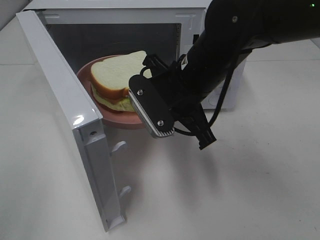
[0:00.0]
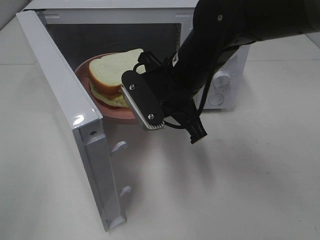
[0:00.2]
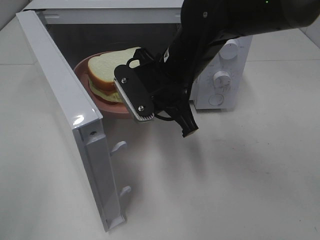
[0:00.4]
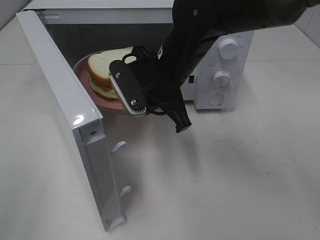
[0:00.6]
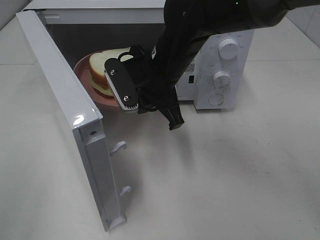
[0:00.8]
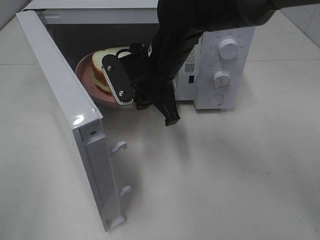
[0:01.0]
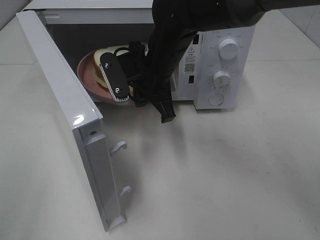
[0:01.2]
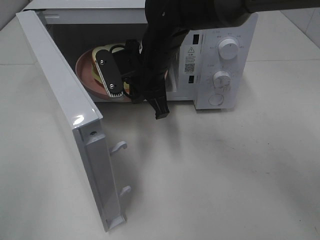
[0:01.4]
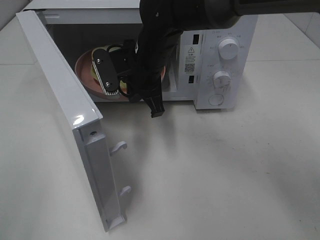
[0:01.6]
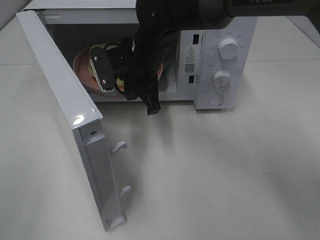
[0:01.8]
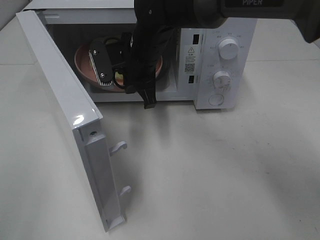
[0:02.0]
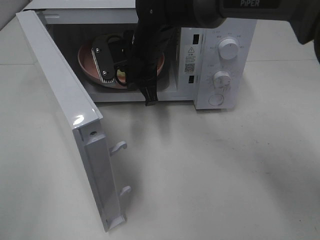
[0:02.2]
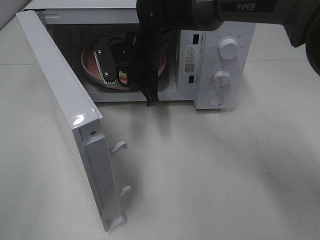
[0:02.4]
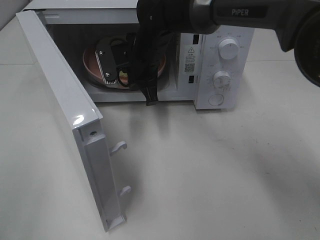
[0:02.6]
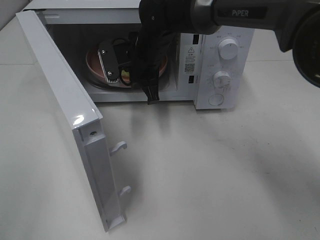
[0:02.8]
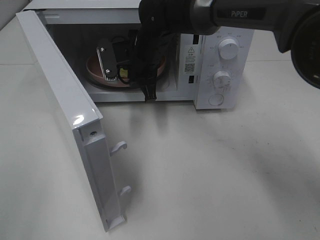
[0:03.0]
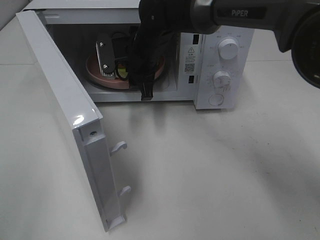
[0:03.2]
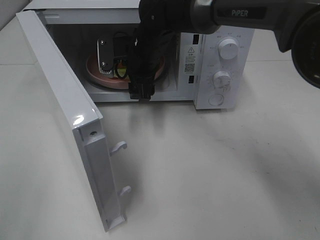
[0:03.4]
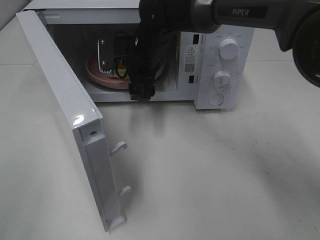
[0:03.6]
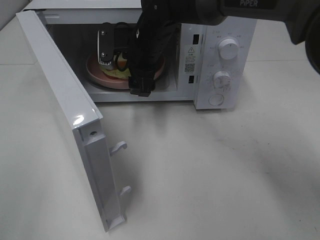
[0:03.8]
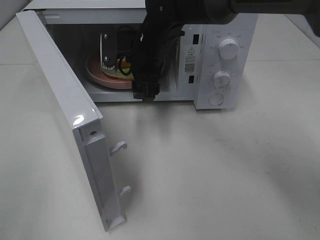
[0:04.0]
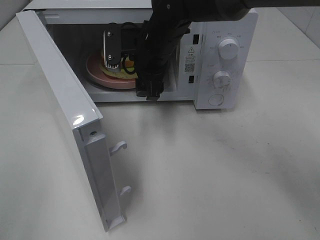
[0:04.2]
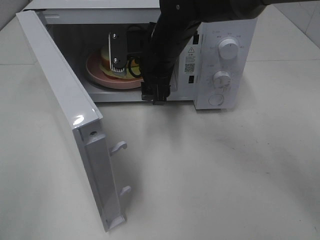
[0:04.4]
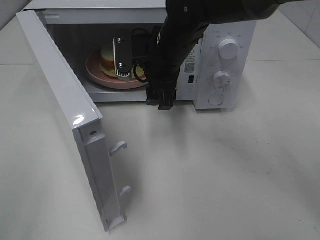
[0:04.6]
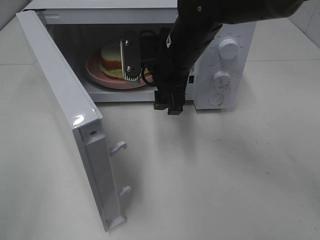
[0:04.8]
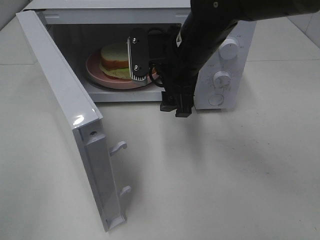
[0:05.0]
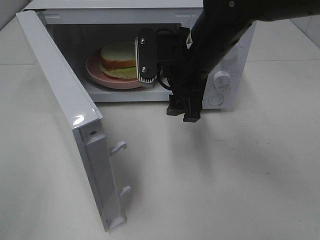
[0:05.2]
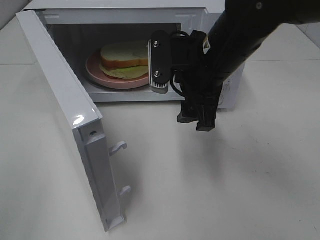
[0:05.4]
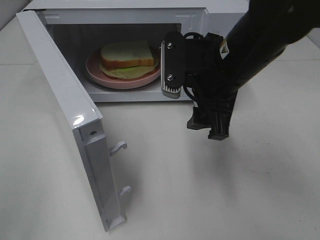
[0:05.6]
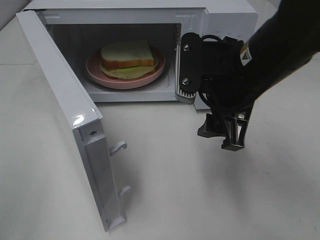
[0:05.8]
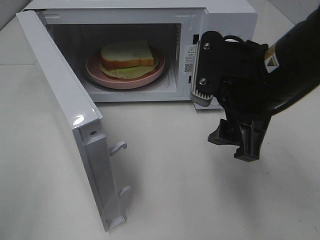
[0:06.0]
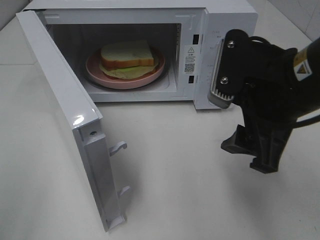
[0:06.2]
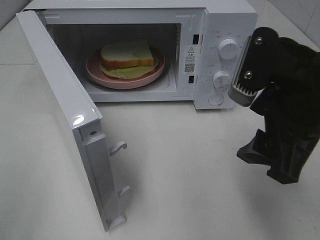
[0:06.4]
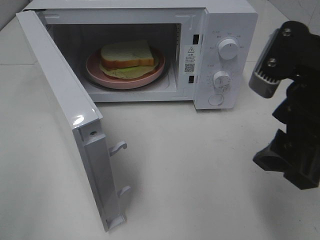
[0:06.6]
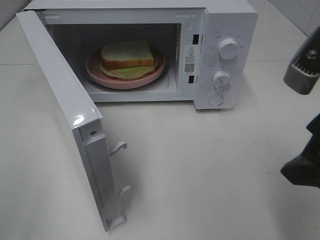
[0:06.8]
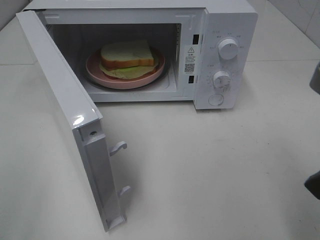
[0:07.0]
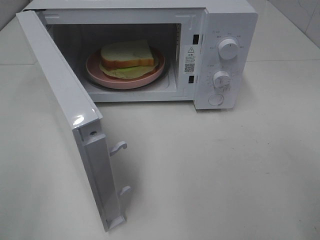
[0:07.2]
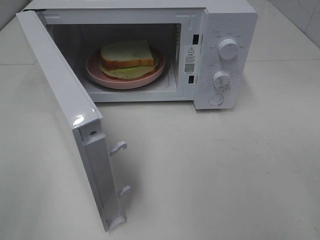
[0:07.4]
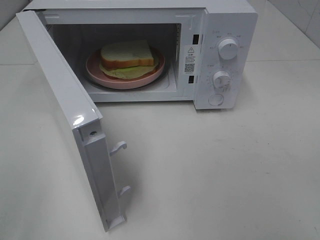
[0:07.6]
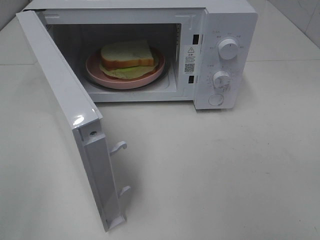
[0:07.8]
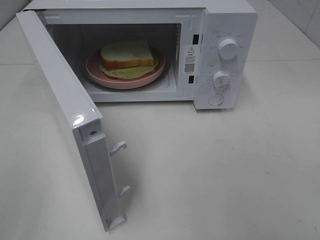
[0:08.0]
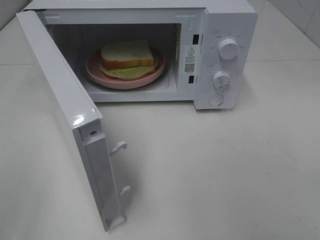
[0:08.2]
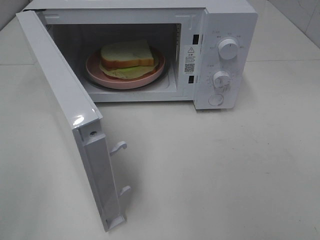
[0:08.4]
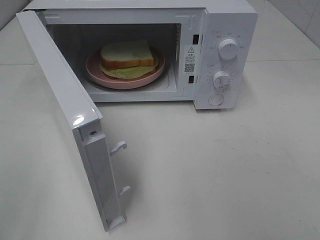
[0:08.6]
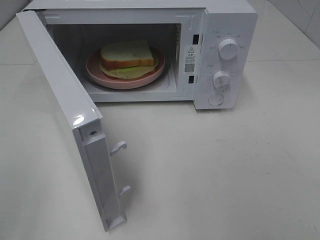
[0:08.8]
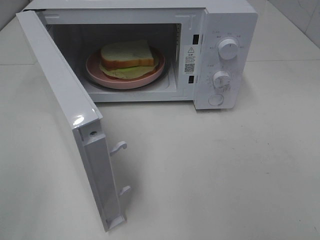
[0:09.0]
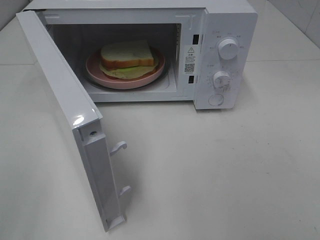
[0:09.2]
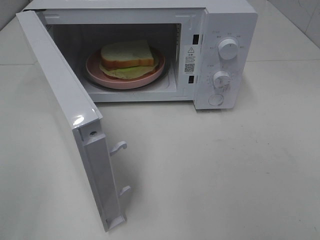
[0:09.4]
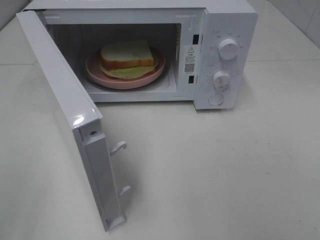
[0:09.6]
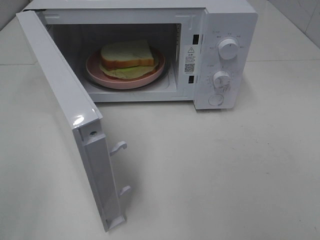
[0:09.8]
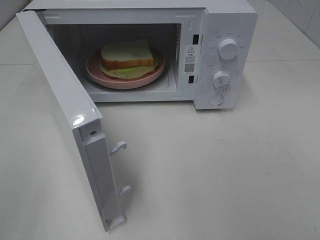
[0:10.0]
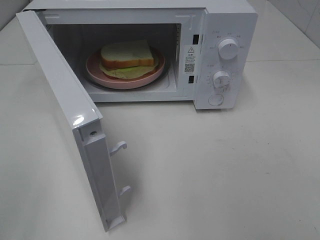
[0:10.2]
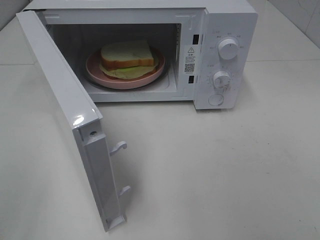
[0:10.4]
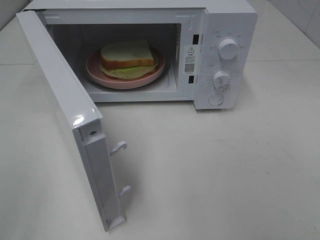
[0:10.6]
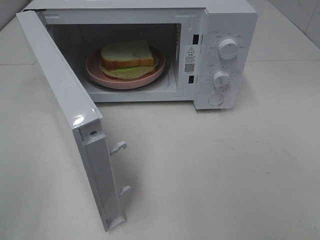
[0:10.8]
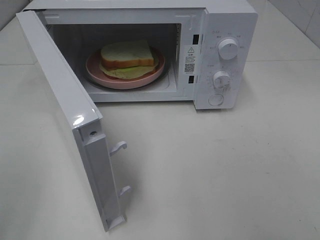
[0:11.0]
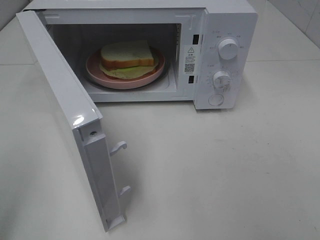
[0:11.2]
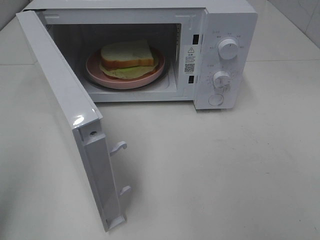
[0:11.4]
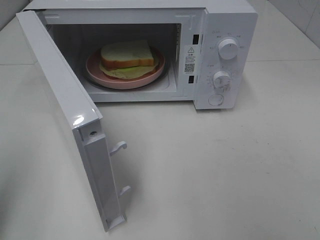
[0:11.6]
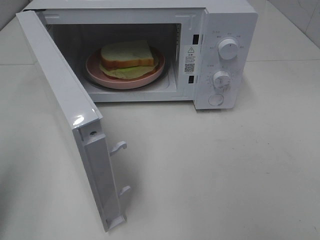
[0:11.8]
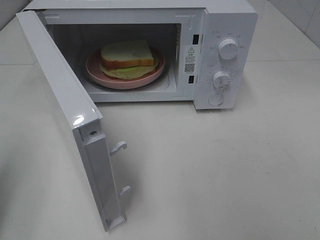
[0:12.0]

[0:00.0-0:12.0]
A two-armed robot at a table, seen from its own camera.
Task of the whole recording: Heat Sandwich.
Step, 0:00.0 to 0:04.0: Right hand: place the plate in the microwave.
0:00.0 to 0:01.6: The right gripper moves forward and to the left, approximately 10 cm.
0:01.6 to 0:03.0: The right gripper travels forward by approximately 5 cm.
0:03.0 to 0:04.4: The right gripper shifts by approximately 5 cm, and opens.
0:04.4 to 0:06.0: The right gripper goes some 20 cm backward and to the right.
0:06.0 to 0:07.6: The right gripper goes approximately 20 cm backward and to the right.
0:09.0 to 0:10.4: Both grippers stay about where they are.

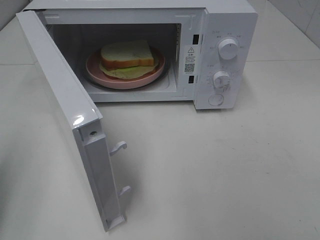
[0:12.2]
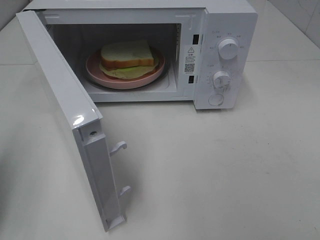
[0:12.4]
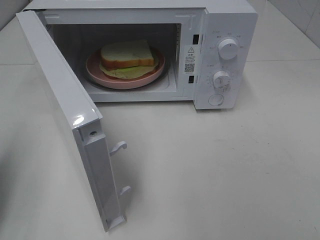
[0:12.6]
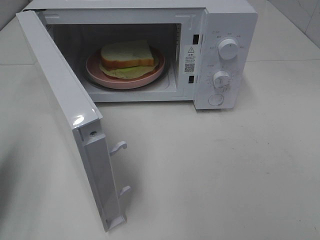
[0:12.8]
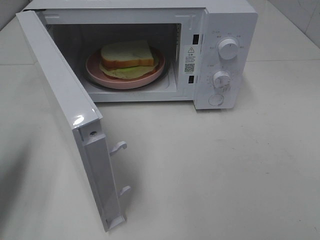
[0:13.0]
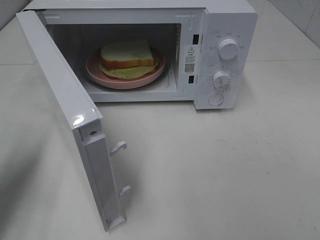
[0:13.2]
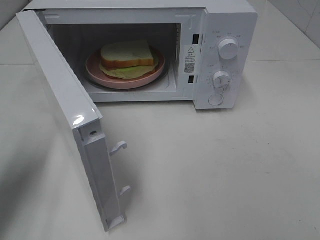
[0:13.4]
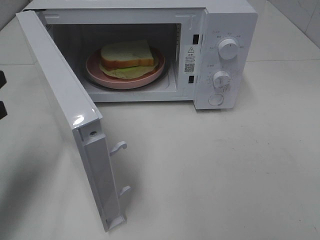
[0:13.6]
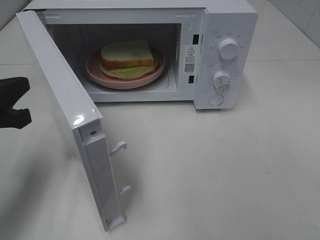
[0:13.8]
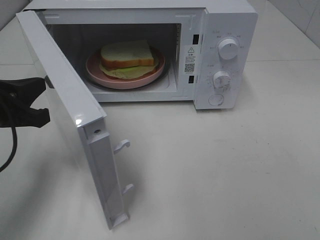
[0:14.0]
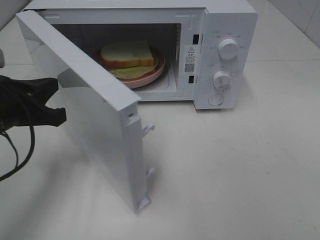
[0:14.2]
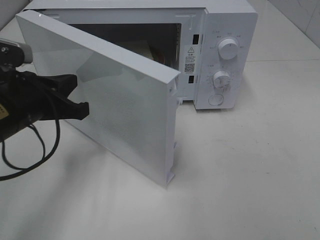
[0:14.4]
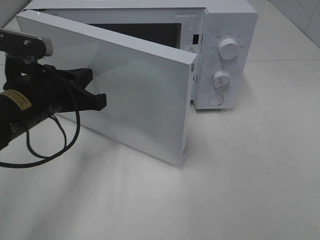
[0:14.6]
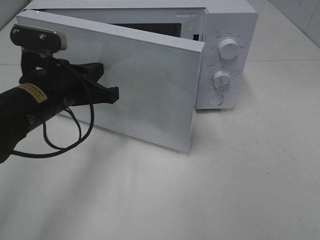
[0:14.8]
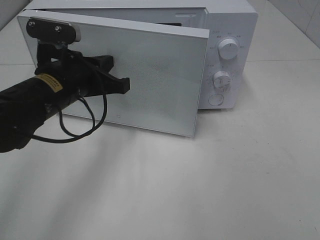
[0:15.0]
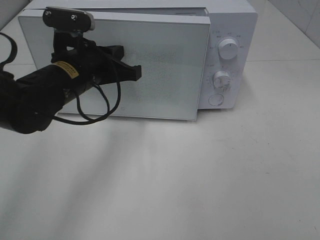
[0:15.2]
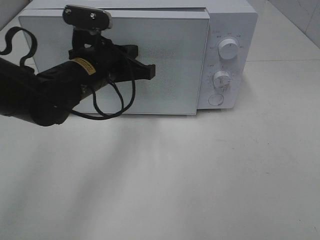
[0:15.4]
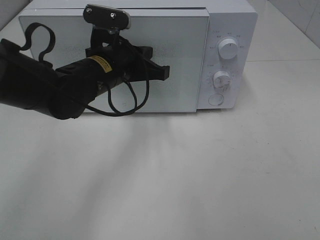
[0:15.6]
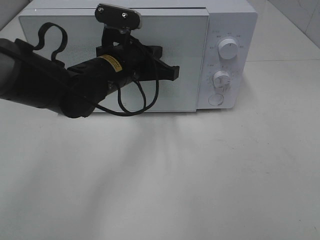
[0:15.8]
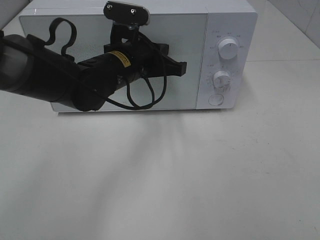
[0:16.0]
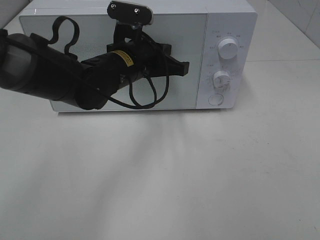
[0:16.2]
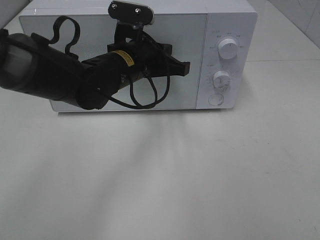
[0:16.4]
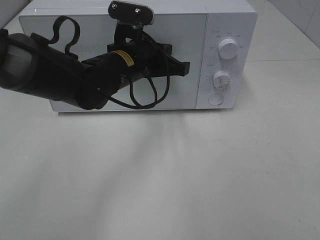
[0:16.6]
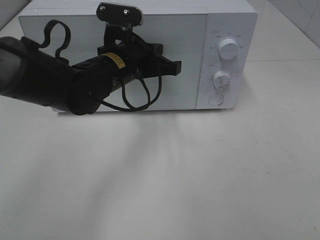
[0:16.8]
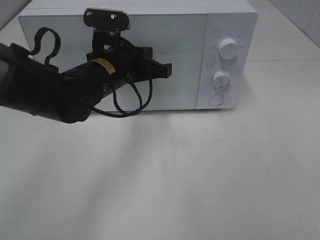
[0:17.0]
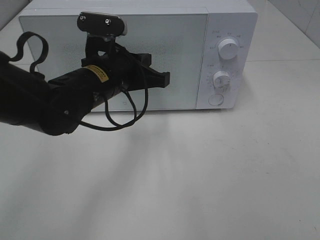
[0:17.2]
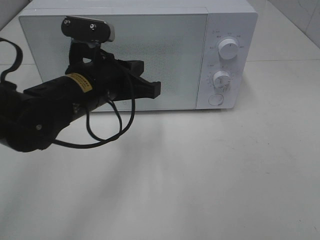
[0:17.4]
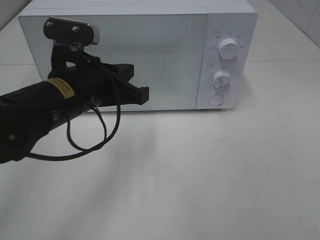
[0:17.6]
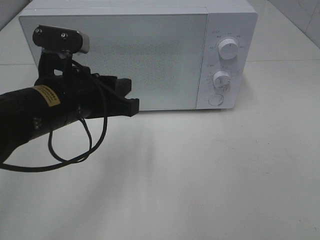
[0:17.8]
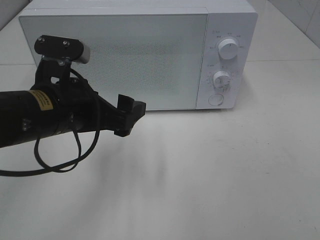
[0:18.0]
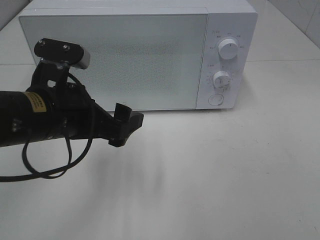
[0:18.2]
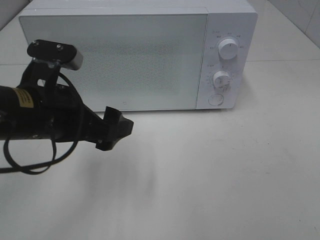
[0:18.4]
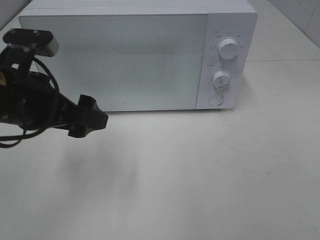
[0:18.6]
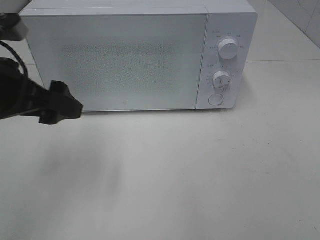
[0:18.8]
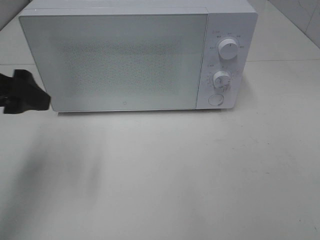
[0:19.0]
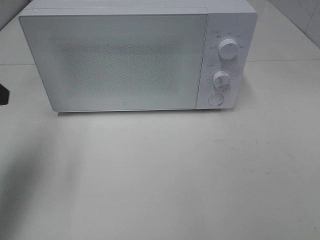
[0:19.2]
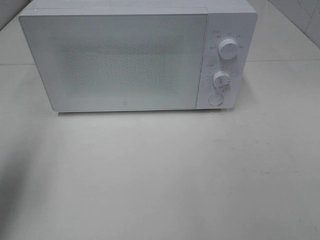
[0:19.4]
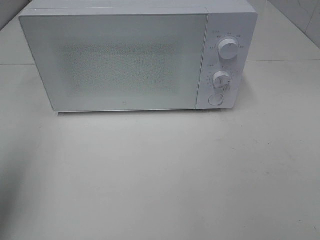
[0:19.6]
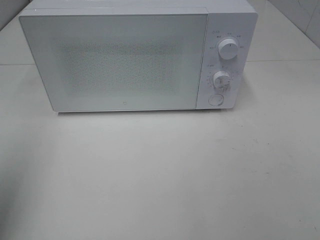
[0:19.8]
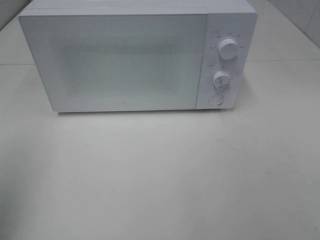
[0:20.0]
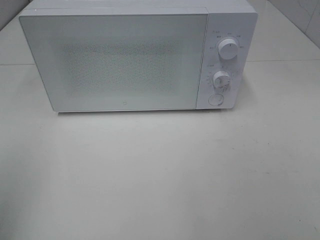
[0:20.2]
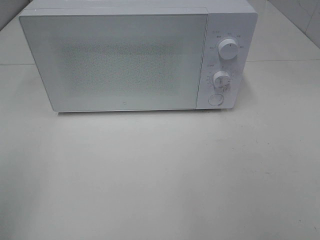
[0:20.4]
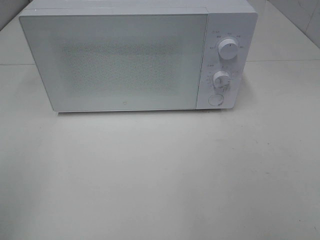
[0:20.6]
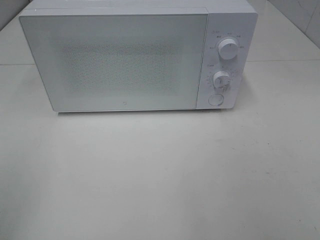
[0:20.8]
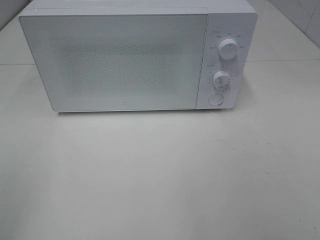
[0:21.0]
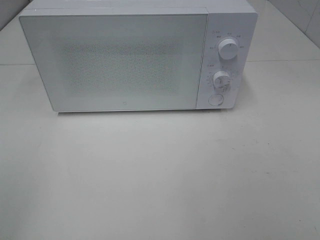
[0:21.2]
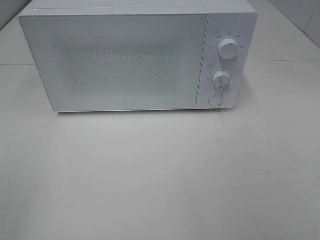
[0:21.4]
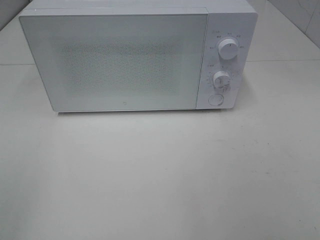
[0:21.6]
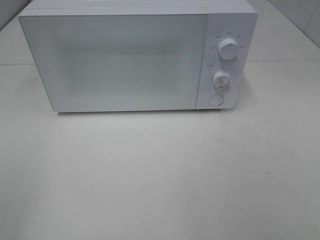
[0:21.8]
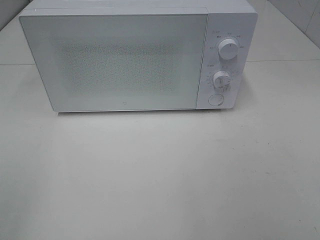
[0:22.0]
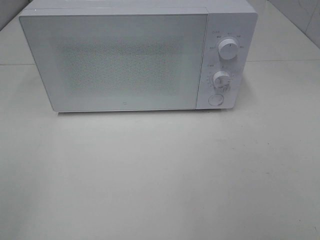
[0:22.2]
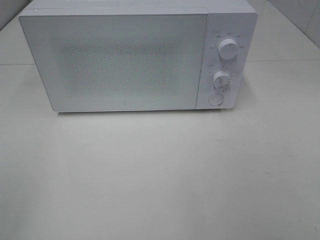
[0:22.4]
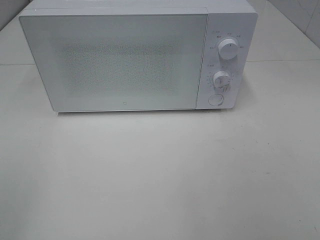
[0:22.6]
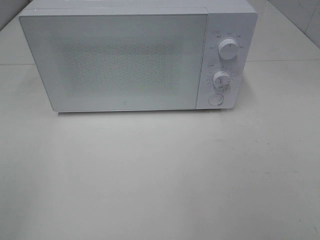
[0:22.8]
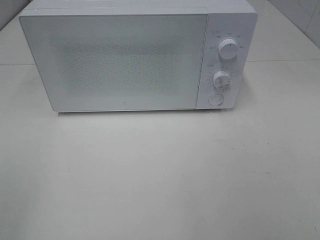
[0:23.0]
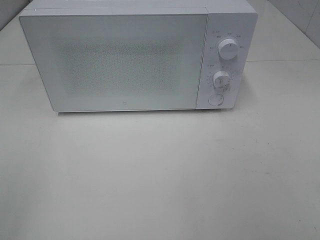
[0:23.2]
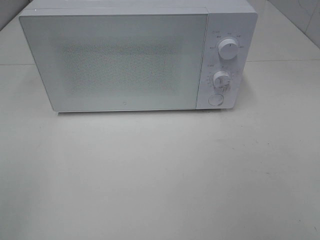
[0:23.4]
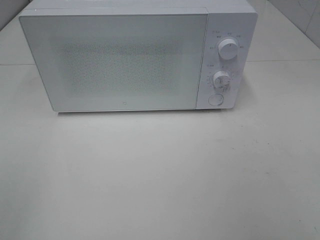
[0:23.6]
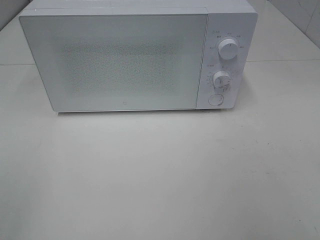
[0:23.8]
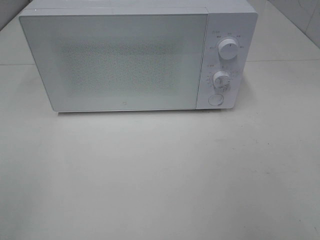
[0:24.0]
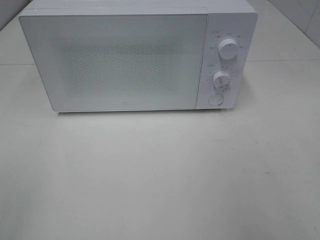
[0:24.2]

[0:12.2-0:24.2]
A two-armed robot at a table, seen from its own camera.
Task of the whole recording: Heat Sandwich.
Step, 0:12.2 to 0:17.0: Left hand: close the microwave door.
0:12.2 to 0:13.8: The left gripper is displaced forward and to the right by some 10 cm.
0:13.8 to 0:15.2: The left gripper is displaced to the right and forward by roughly 15 cm.
0:15.2 to 0:16.6: The left gripper heads to the right, covering some 5 cm.
0:16.6 to 0:18.2: The left gripper travels backward and to the left by roughly 15 cm, and opens its fingers.
0:18.2 to 0:19.8: The left gripper travels to the left, upward and backward by some 25 cm.
0:19.8 to 0:21.2: The left gripper goes about 10 cm backward.
0:21.2 to 0:22.6: Both grippers stay put.
